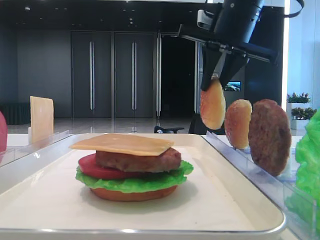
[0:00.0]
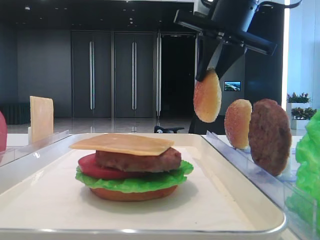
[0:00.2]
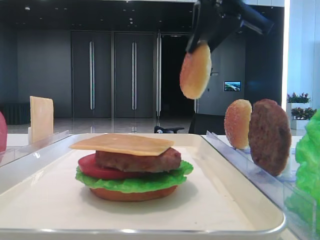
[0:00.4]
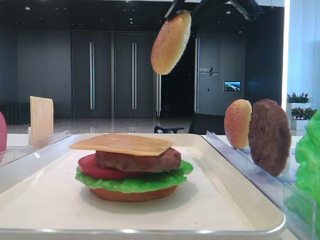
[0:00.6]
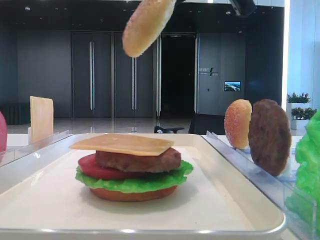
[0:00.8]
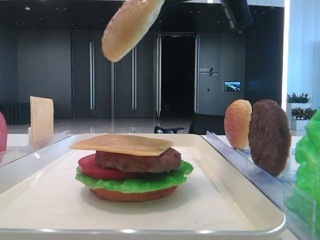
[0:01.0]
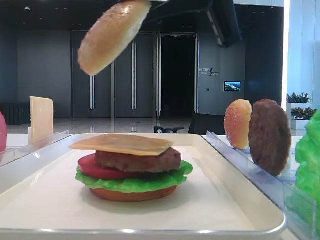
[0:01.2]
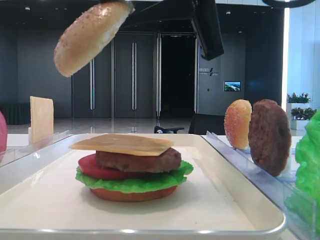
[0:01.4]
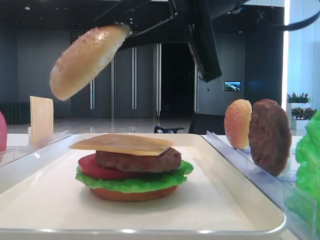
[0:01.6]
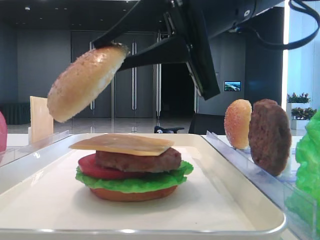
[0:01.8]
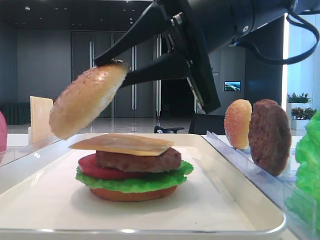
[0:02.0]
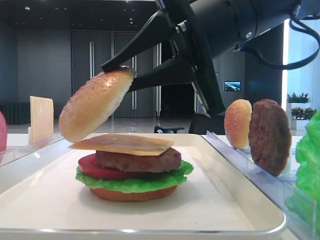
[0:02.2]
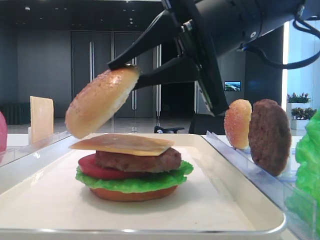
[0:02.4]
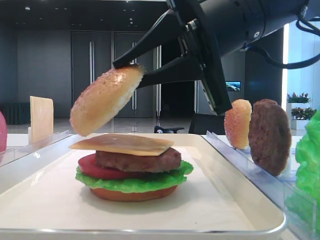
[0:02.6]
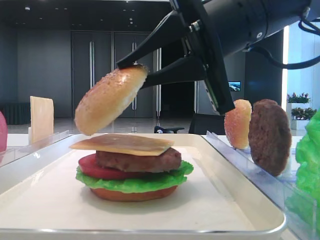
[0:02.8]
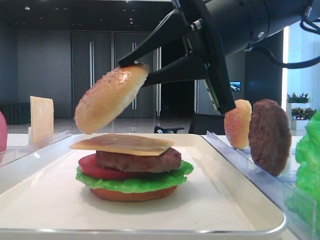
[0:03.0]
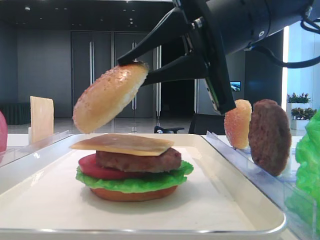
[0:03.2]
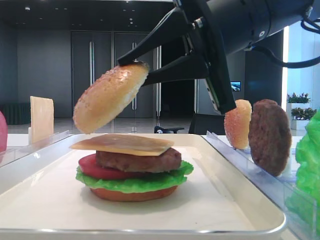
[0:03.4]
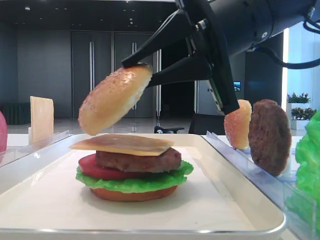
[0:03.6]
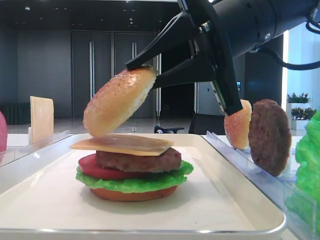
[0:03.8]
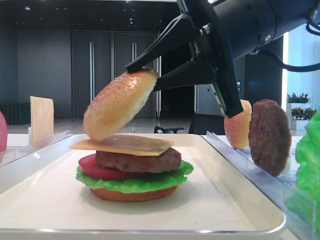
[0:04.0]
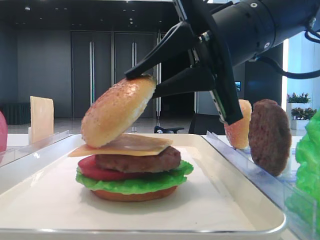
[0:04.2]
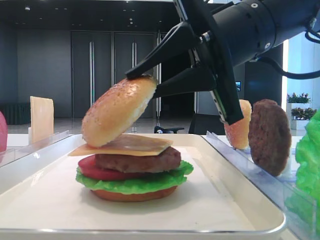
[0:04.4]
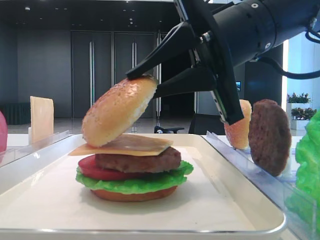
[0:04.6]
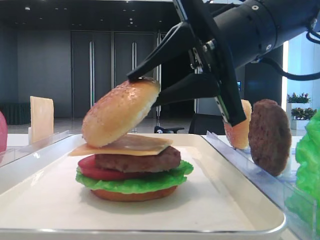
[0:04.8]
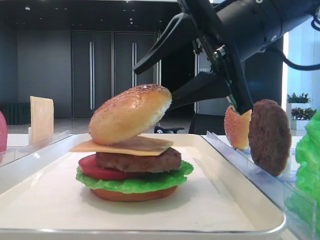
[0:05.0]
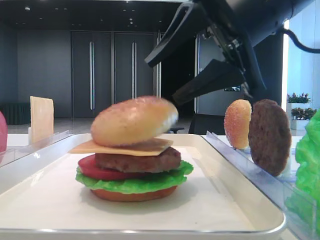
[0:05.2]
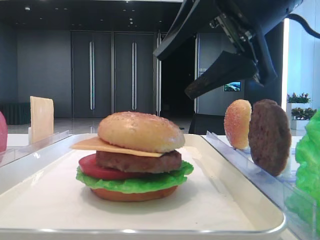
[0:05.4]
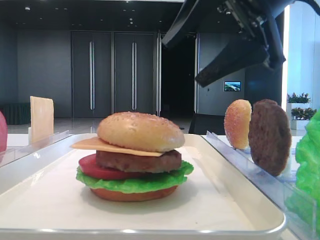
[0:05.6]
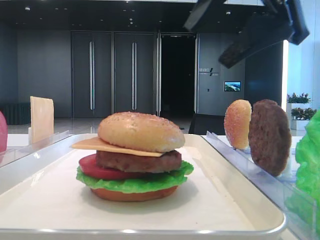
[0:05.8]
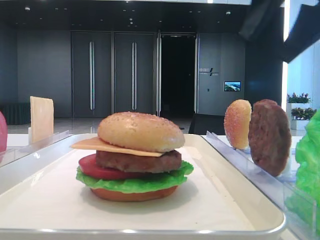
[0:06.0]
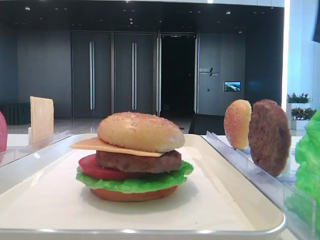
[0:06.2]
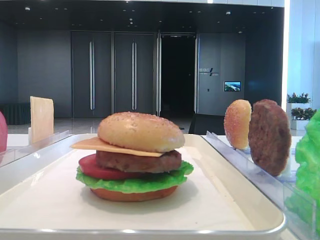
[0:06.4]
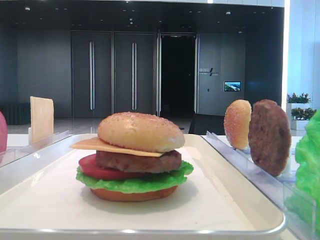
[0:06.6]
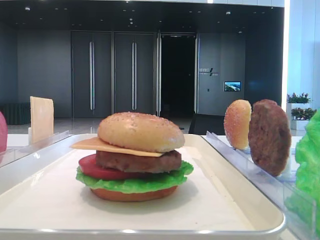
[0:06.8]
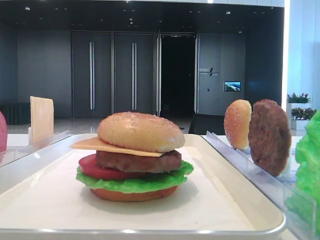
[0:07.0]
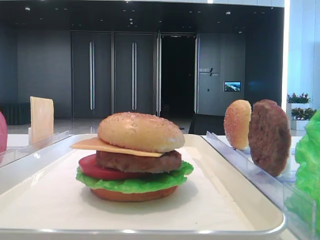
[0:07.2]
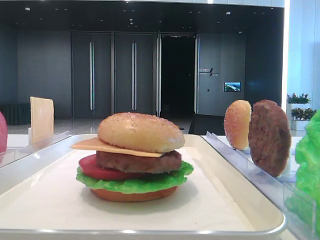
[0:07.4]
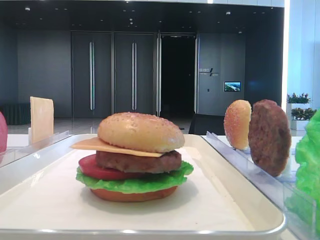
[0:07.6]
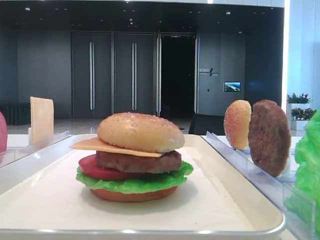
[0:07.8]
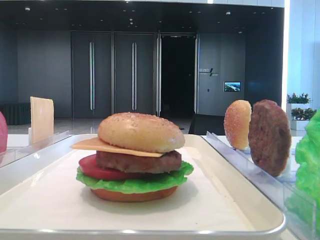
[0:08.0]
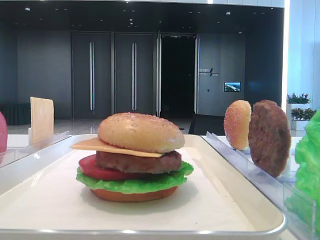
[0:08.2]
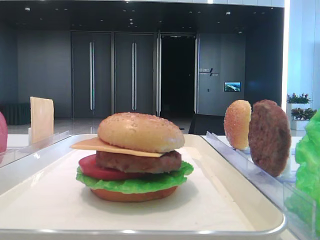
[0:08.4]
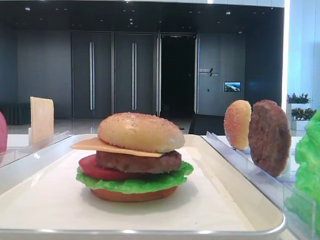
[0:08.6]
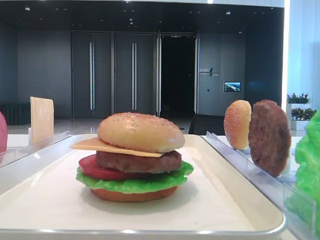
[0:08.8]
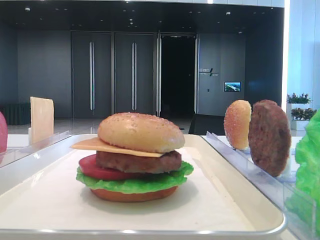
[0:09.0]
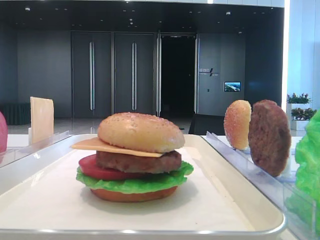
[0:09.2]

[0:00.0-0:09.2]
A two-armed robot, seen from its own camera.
Step, 0:00.0 to 0:05.4: Place the top bread slice on the cheese with the right hand.
0:00.0 to 0:01.6: The right gripper moves backward, approximately 15 cm.
0:01.6 to 0:03.0: There are only small adjustments of the grippers.
0:03.0 to 0:04.6: Both grippers stay put.
0:04.6 to 0:06.2: The right gripper is displaced to the right and upward by about 20 cm, and opens up.

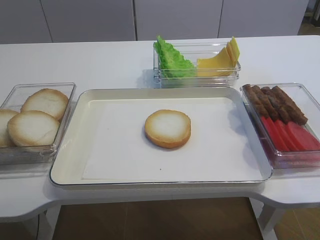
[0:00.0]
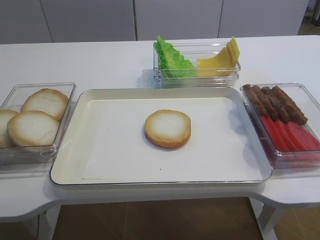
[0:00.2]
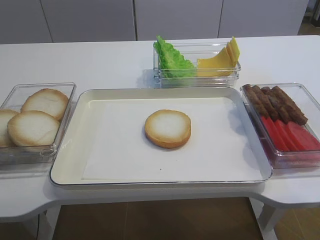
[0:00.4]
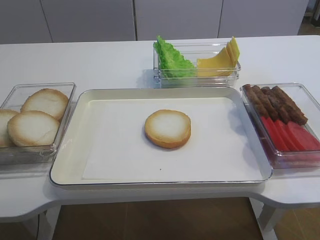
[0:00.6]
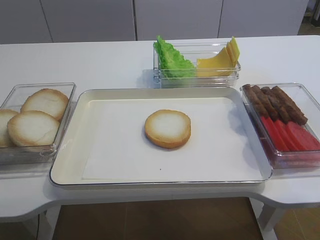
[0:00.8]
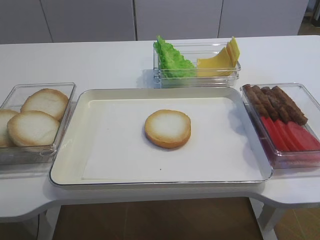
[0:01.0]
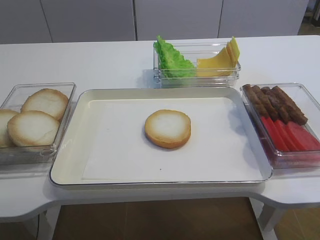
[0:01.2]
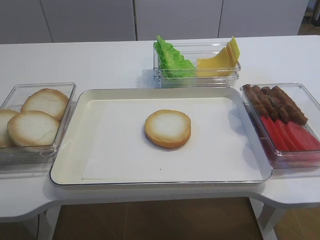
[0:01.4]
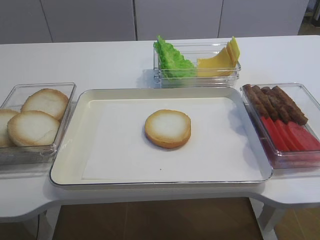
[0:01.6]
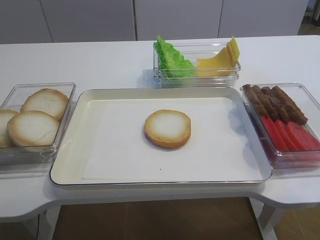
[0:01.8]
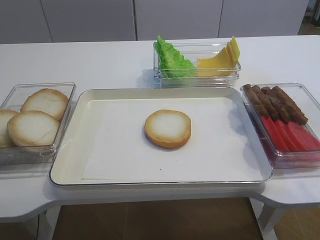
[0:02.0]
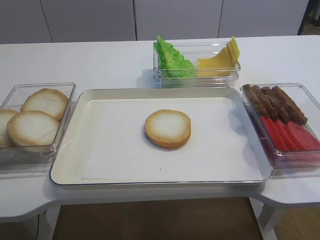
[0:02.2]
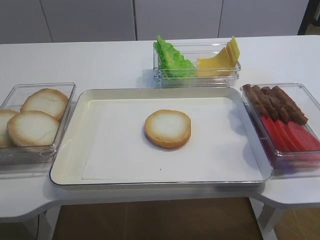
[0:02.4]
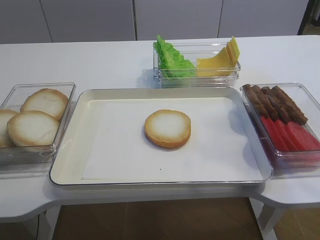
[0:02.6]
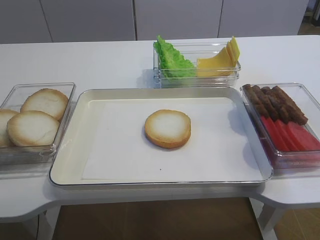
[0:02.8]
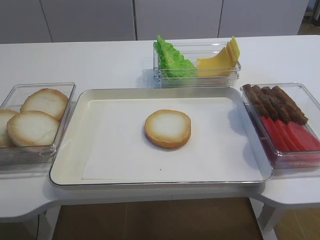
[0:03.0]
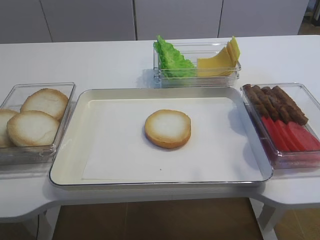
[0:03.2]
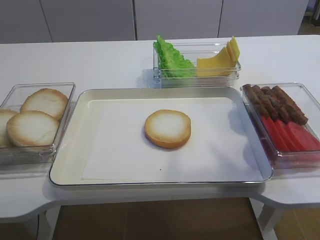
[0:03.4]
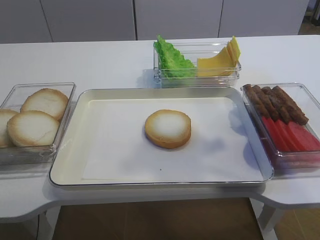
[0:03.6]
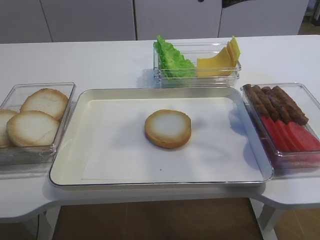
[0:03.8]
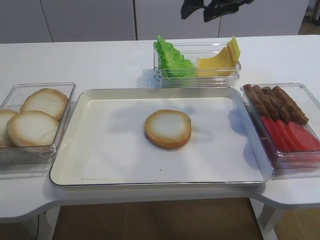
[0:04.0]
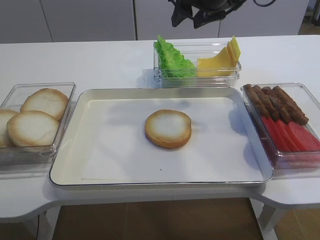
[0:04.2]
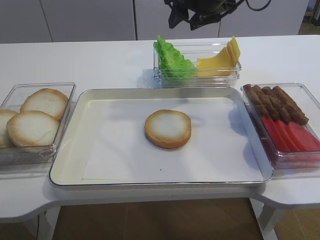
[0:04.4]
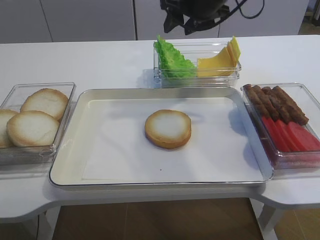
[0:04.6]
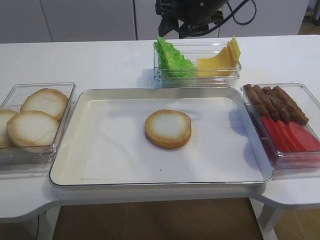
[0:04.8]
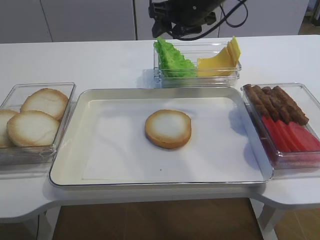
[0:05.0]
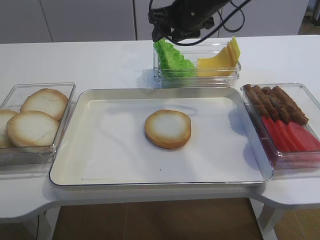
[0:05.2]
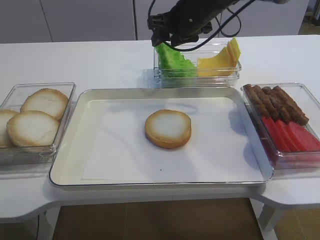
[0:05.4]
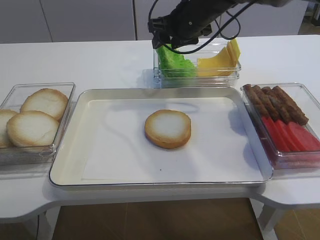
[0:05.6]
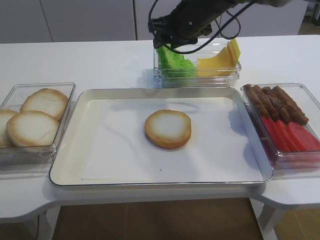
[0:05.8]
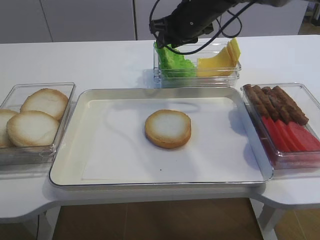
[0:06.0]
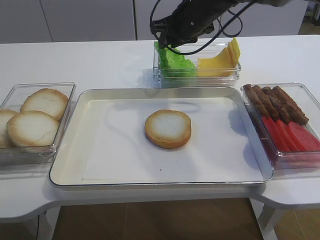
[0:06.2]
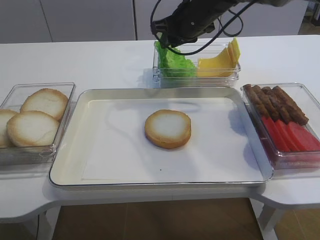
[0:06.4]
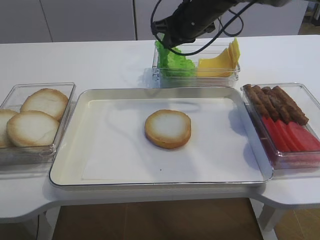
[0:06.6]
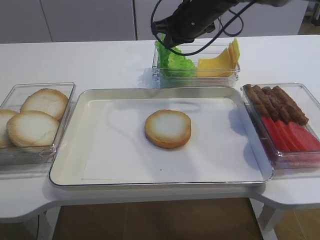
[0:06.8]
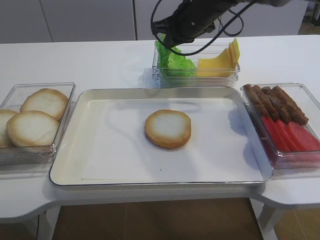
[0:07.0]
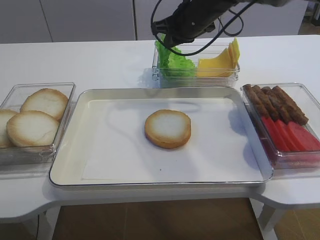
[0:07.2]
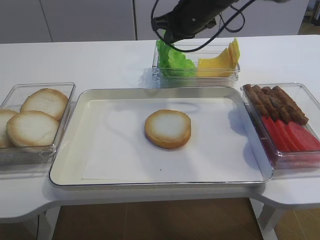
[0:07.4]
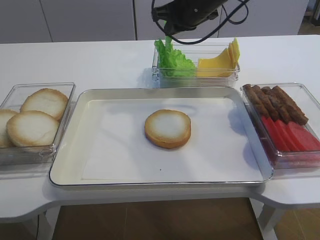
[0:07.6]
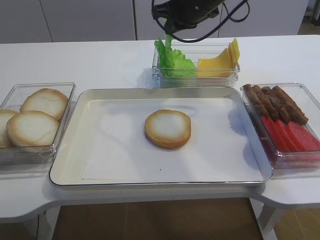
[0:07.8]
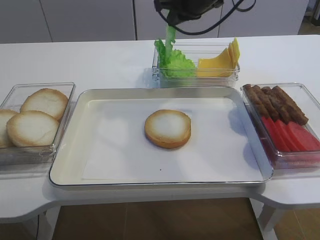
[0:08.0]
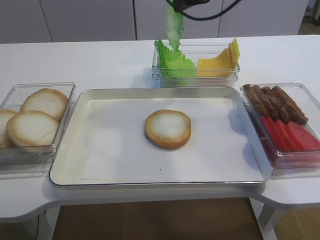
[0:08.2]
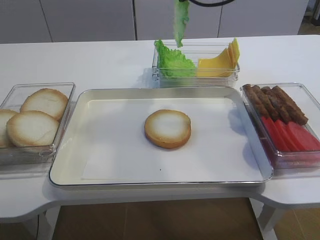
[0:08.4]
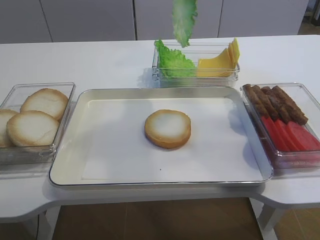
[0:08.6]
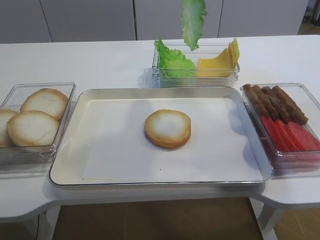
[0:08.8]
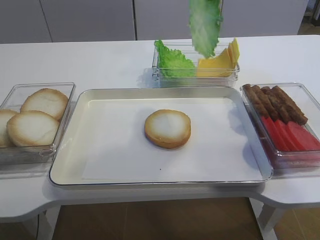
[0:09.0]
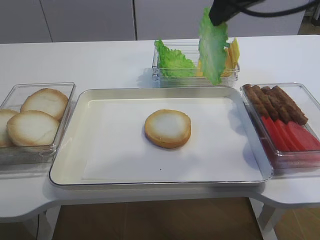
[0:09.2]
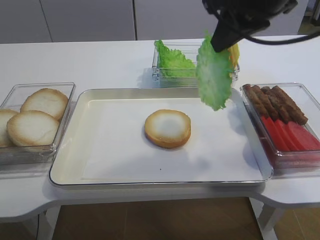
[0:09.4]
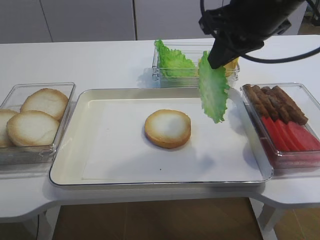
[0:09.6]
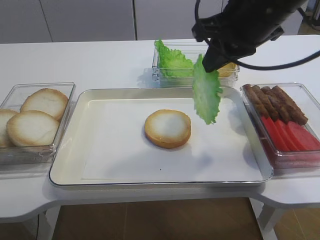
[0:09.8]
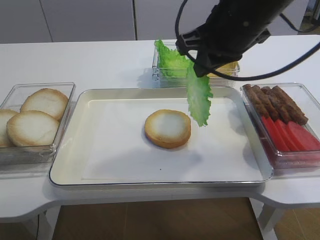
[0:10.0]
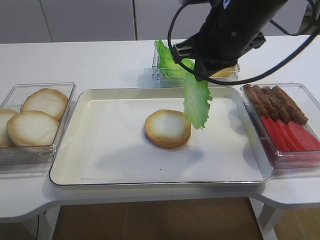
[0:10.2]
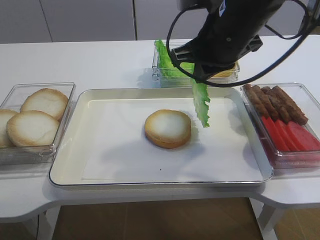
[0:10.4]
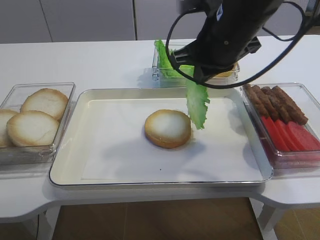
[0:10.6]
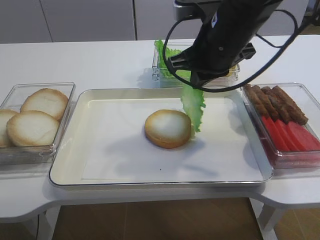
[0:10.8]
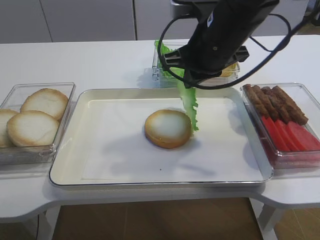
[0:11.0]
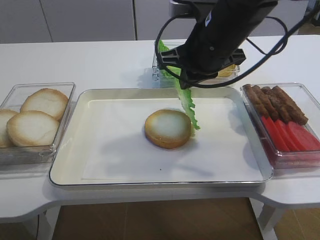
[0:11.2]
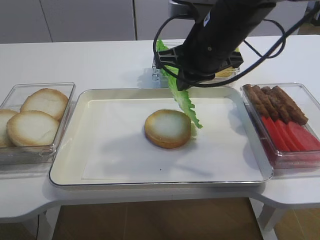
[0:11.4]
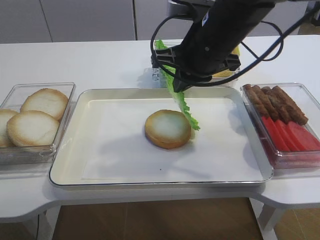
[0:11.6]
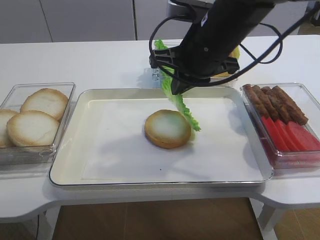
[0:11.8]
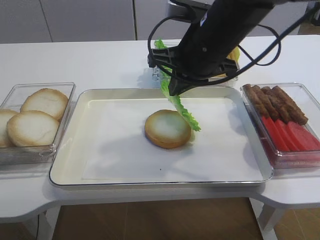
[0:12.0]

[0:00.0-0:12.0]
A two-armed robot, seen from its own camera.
Step, 0:00.0 to 0:07.6: Pick up the lettuce leaf with the right gripper.
0:01.6 to 0:03.0: The right gripper moves forward and upward, some 20 cm.
0:03.0 to 0:04.4: The right gripper goes approximately 30 cm forward and to the left.
0:04.4 to 0:06.0: The right gripper is displaced downward by roughly 5 cm.
0:06.0 to 0:07.6: The right gripper closes up.
0:07.6 to 0:09.0: The right gripper heads backward and upward, covering about 20 cm.
0:09.0 to 0:10.4: The right gripper travels downward by some 10 cm.
0:10.4 to 0:12.0: The grippers move only a little.

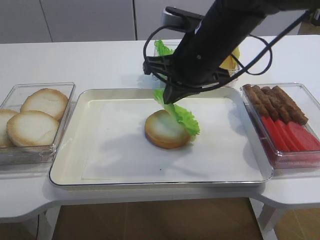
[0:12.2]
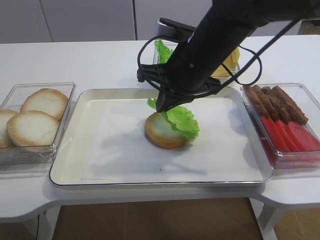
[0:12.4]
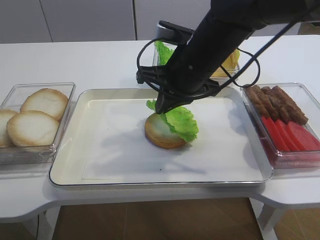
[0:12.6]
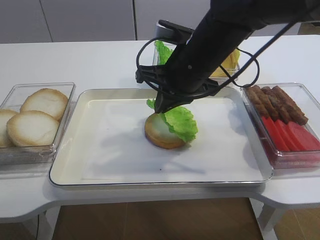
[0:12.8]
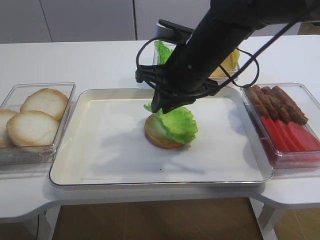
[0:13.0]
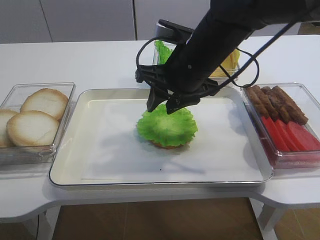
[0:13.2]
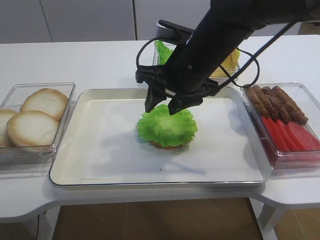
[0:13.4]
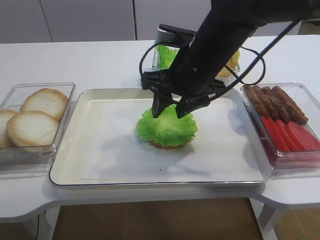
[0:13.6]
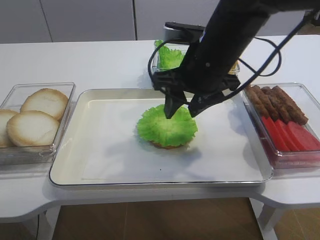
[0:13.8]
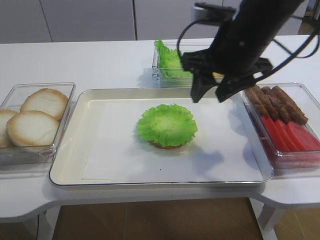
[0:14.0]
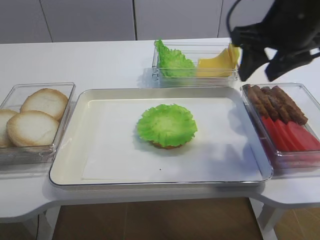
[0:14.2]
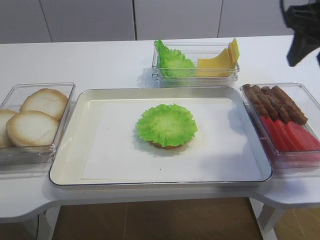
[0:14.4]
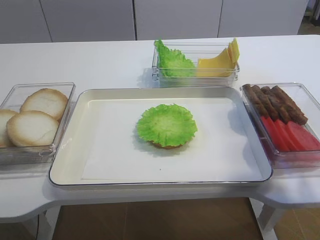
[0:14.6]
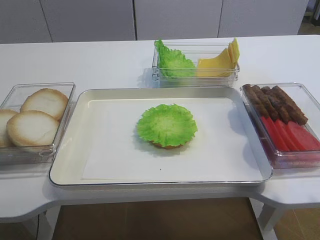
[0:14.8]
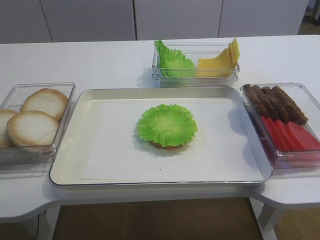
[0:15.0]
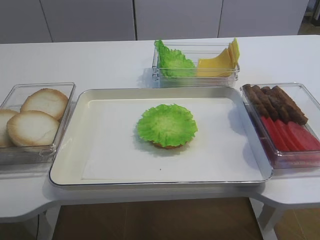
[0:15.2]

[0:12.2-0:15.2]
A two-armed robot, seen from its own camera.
0:12.2 to 0:13.8: The right gripper opens.
0:13.8 to 0:15.2: The right gripper heads to the right, backward and upward, covering about 30 cm.
